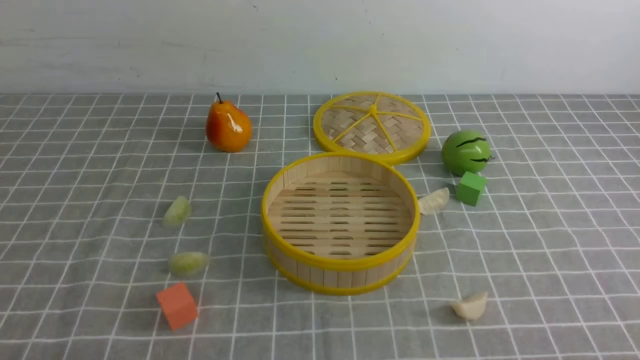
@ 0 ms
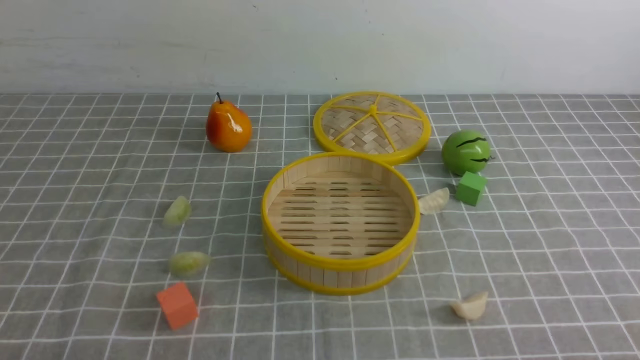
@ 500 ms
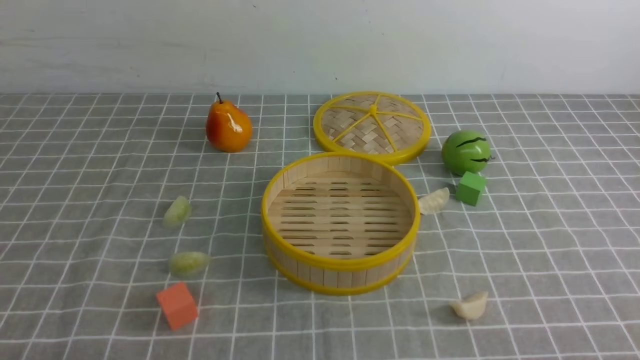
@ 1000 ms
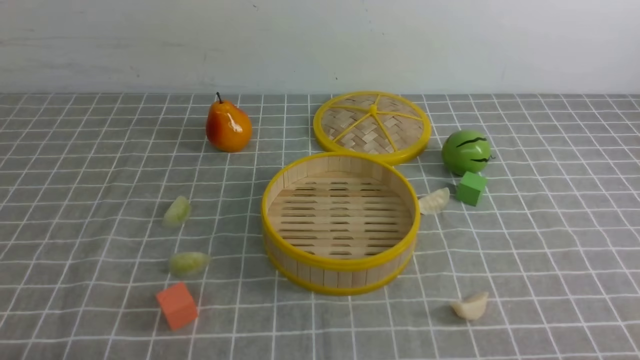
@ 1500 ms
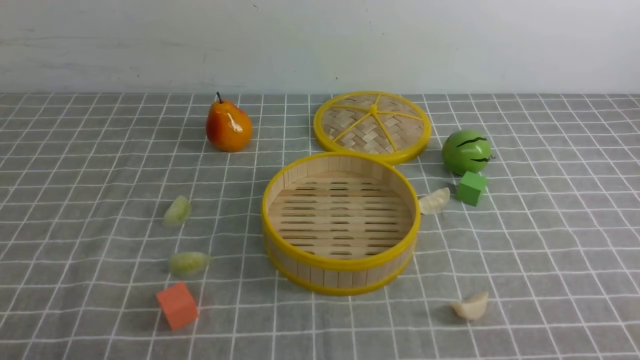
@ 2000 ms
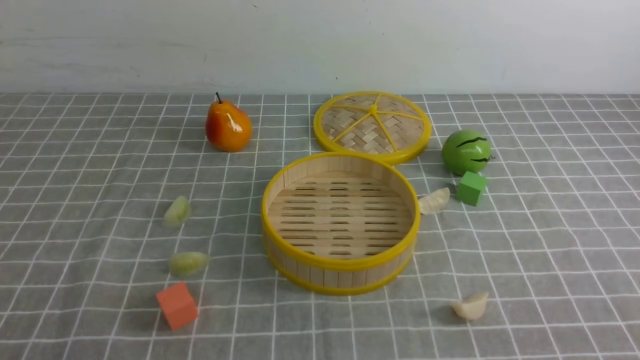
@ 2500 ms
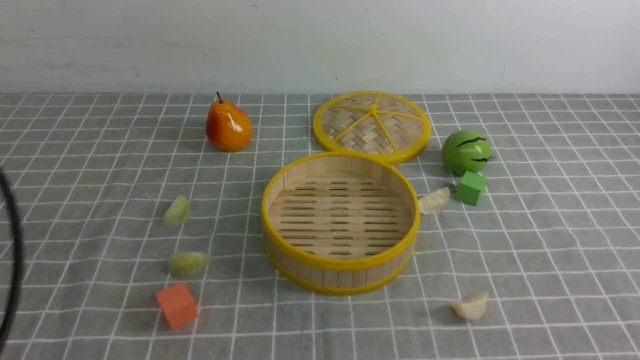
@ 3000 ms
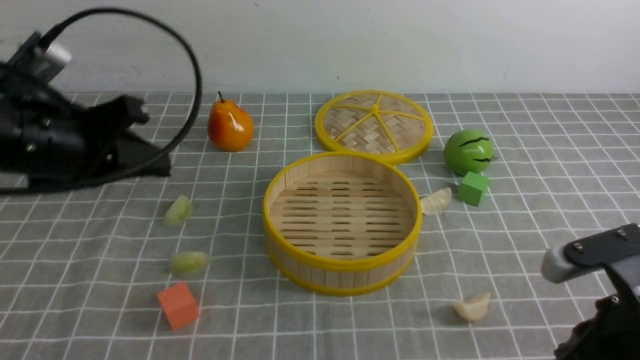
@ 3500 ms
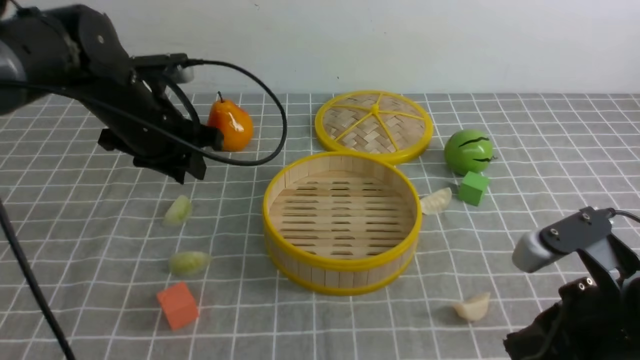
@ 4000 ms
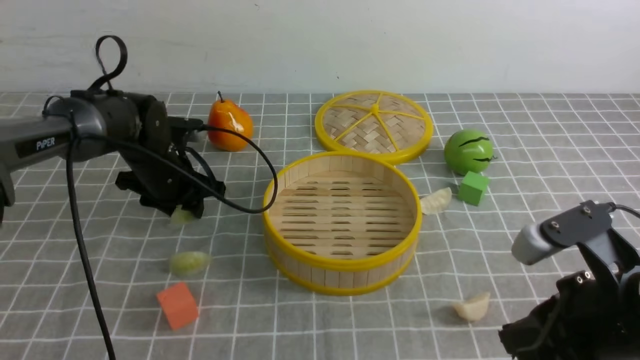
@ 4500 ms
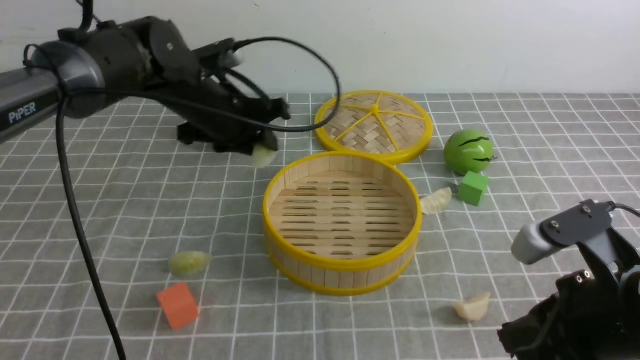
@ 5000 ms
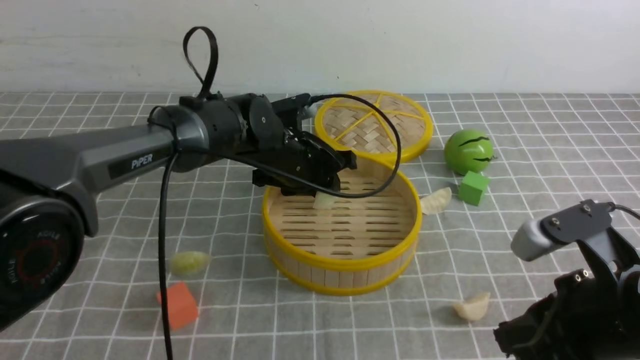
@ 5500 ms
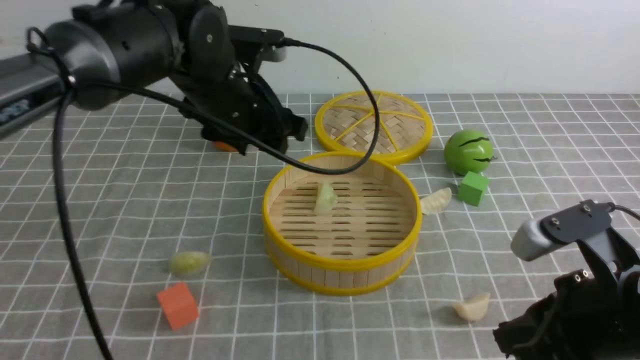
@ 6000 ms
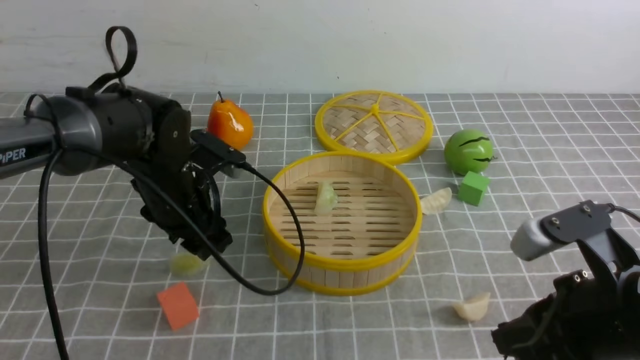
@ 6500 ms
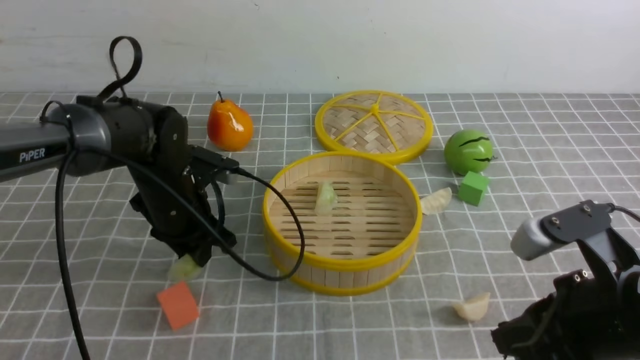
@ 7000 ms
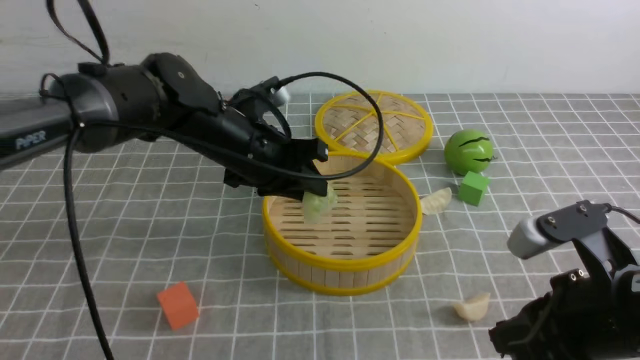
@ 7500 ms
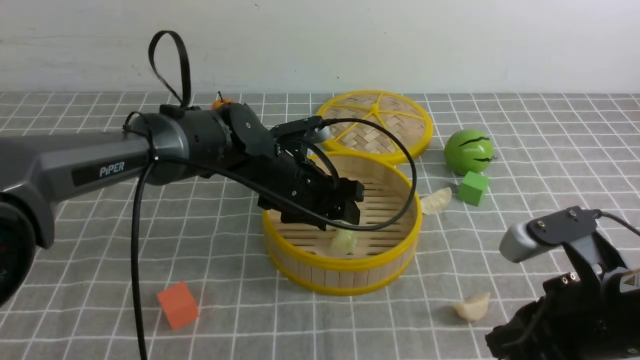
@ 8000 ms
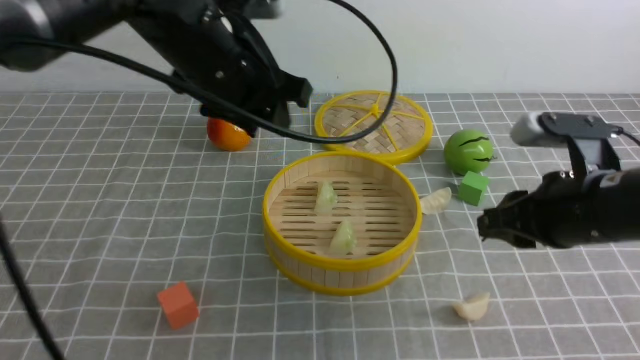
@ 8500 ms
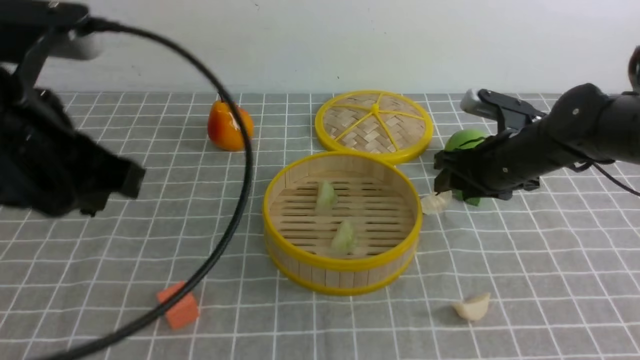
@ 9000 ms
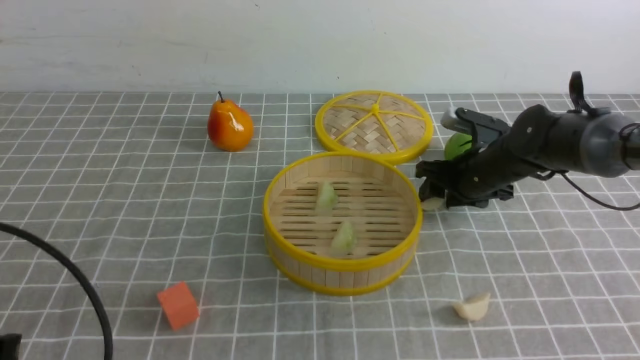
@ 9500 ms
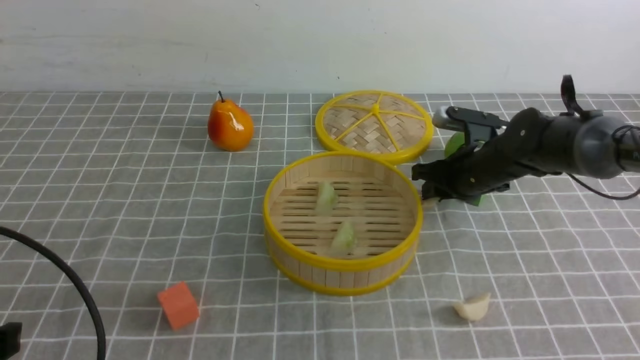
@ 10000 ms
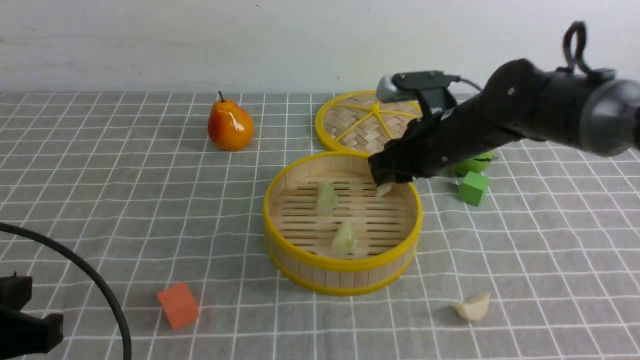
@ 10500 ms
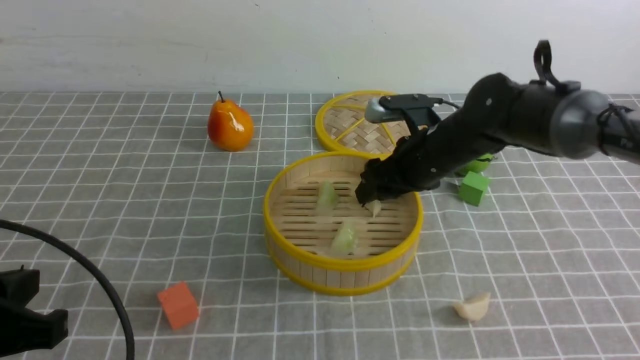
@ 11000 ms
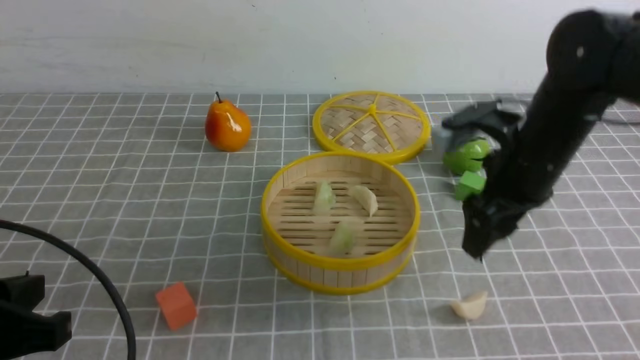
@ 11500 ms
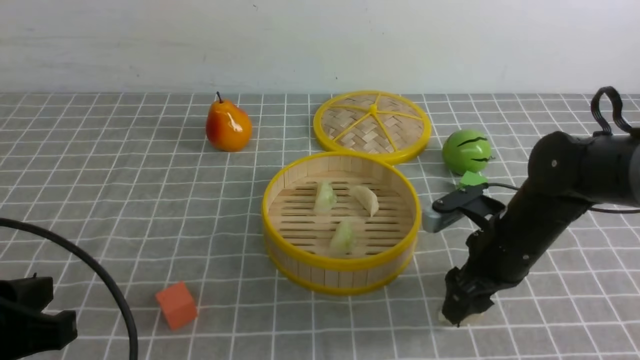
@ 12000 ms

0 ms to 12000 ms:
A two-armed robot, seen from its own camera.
Task of the whole recording: put the dumplings into the steamer on the table with the grey tablecloth.
Step, 0 ms to 4500 ms: use the left arm to grab a dumpling.
Step, 5000 ms to 5500 ms: use the left arm to put the dumpling into the steamer.
Step, 6000 ms to 7000 ms: use the left arm to grab a dumpling.
Step, 7500 ms to 8000 ms: use the left arm to put the dumpling into the steamer.
Step, 8500 ms to 10000 ms: use the right arm to grab a dumpling.
Step, 10500 ms to 11000 ms: use the right arm to put the dumpling into the steamer.
2000 ms to 4000 ms: The right gripper heads forward and to the left, covering approximately 15 cm; the left gripper heads forward, covering some 35 cm, and closes, then opens again.
4000 ms to 6000 ms: The left gripper goes roughly 10 cm to the right, and opens up.
6000 ms to 8000 ms: The left gripper shifts some 5 cm downward, reaches approximately 10 cm to the left, then returns, and closes and opens again.
8000 ms to 10000 ms: The left gripper goes approximately 35 cm backward and to the left, and closes up. Meanwhile the right gripper heads forward, covering about 25 cm.
10000 ms to 12000 ms: The right gripper travels backward by roughly 10 cm, and opens.

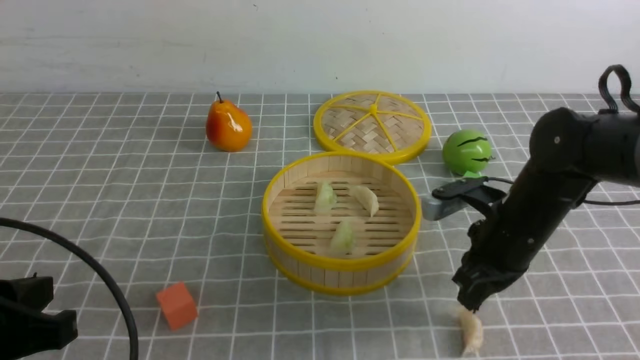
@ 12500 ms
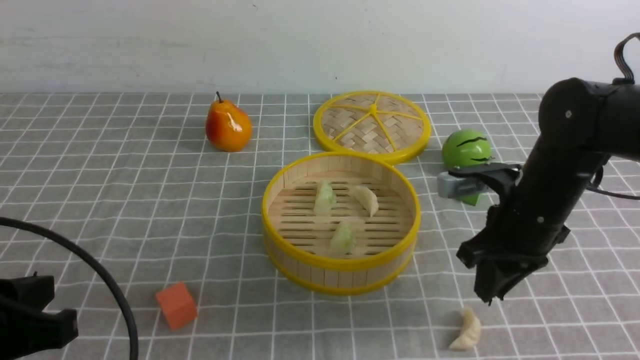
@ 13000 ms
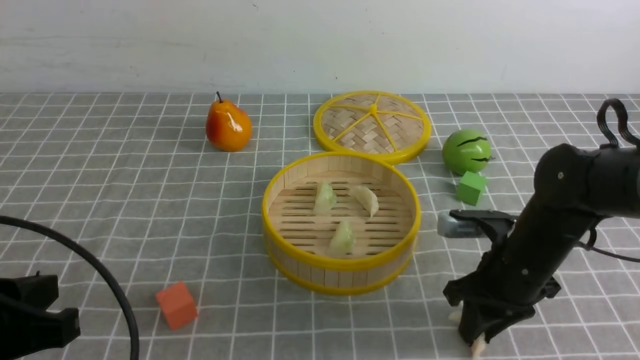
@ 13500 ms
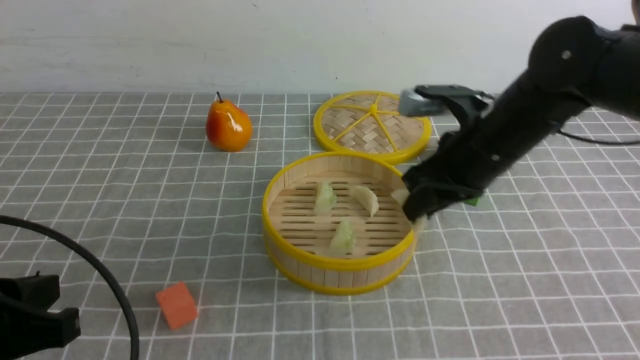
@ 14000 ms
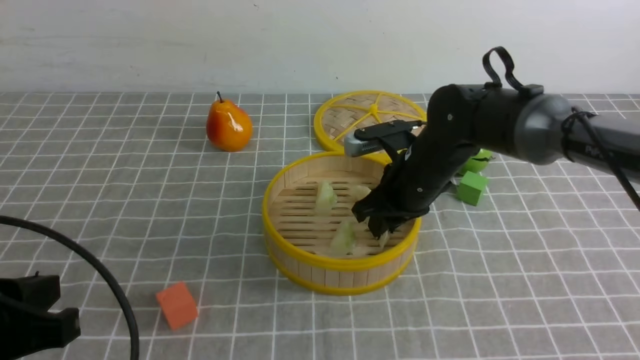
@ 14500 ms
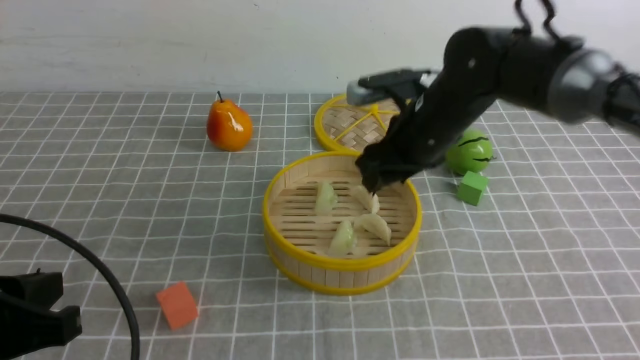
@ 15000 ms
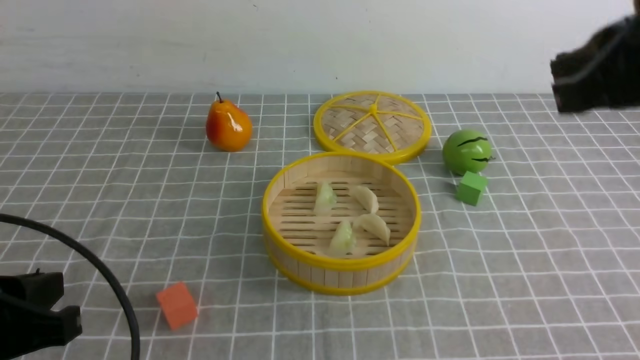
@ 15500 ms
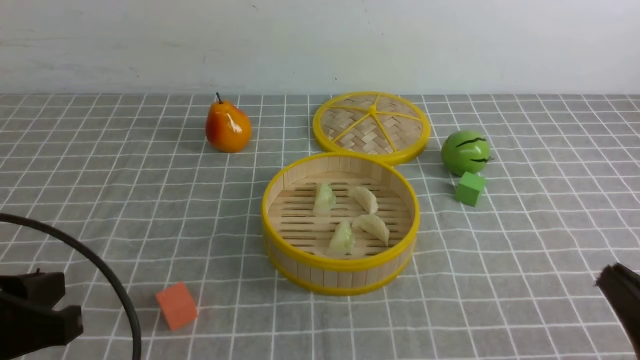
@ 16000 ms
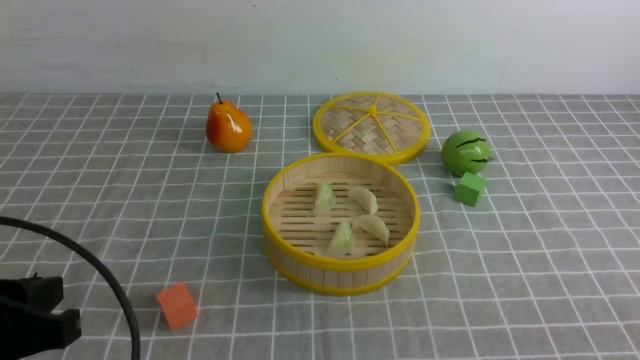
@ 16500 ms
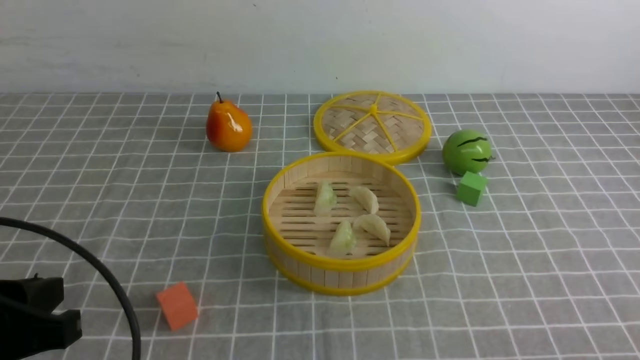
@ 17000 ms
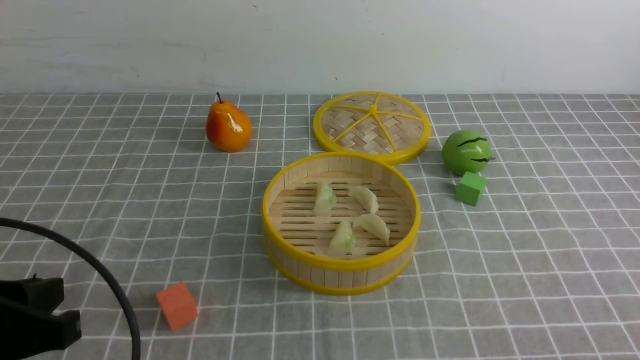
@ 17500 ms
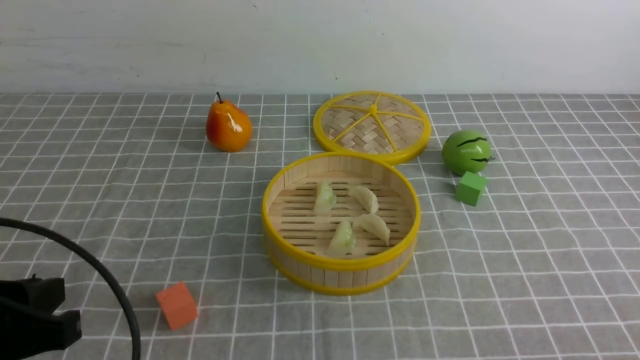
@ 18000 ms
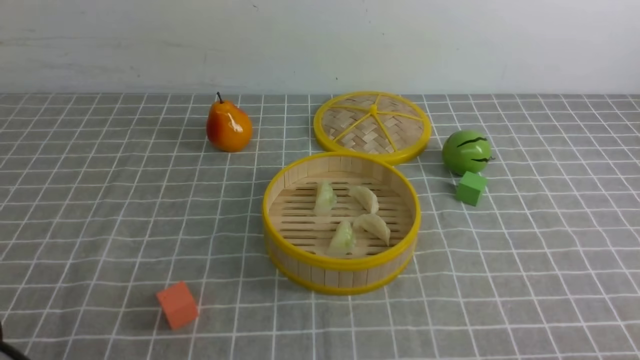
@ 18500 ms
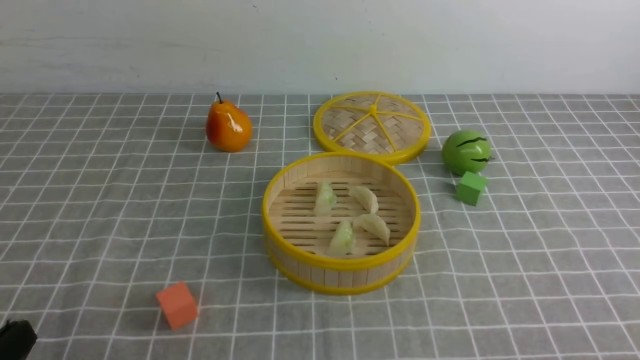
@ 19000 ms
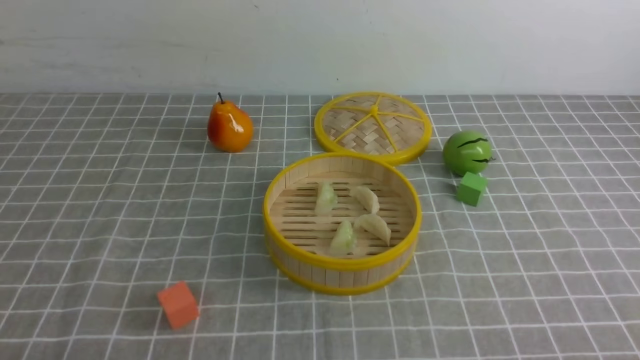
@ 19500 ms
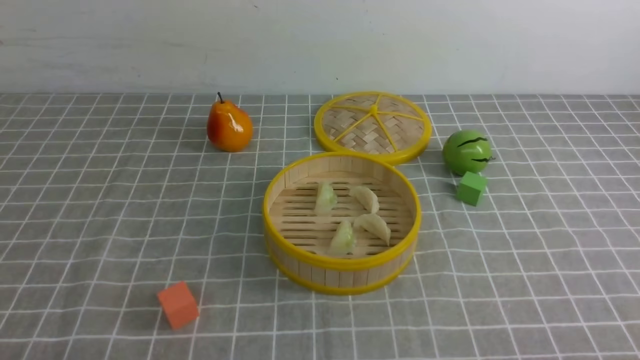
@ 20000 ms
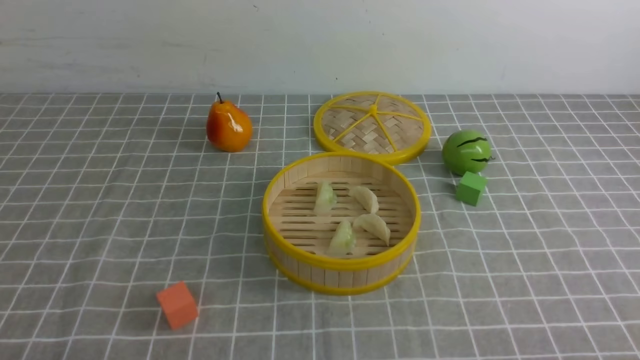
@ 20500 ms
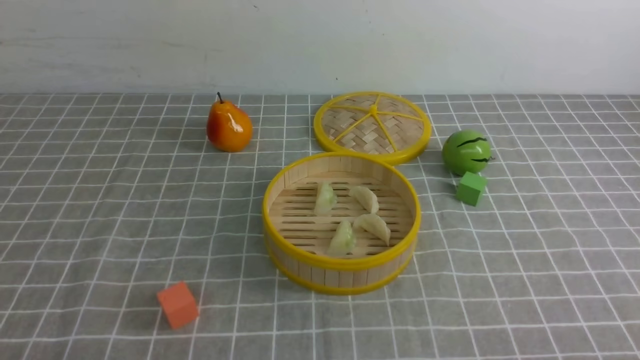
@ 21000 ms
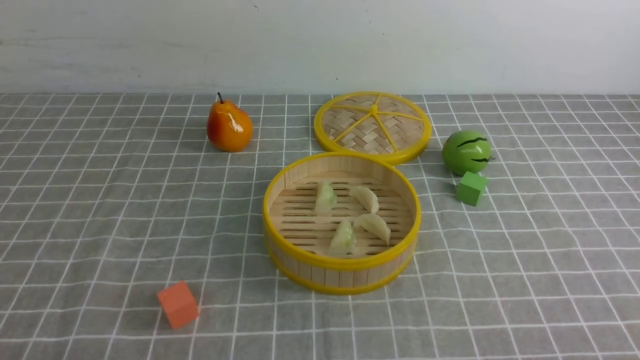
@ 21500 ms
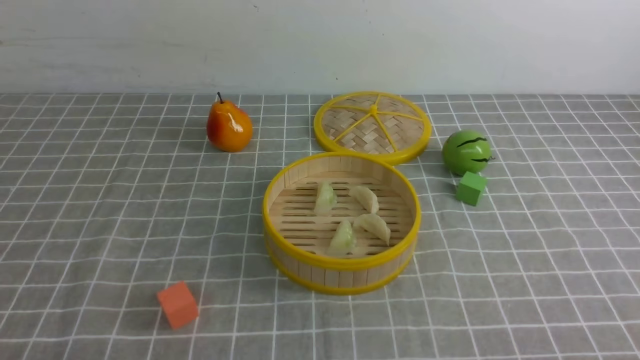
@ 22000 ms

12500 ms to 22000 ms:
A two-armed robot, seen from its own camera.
Task of the whole recording: put the dumplings into the steamer on the table with the grey tablecloth.
Step, 14000 ms to 14500 ms: use the right arm to put the dumpling into the steamer.
12500 ms to 14500 ms: The right gripper moves to the left and forward, about 10 cm.
14500 ms to 16500 ms: The right gripper moves backward and to the right, some 40 cm, and closes.
18000 ms to 20000 ms: The left gripper moves downward and backward, roughly 15 cm.
20000 ms to 22000 ms: Both grippers stay put.
